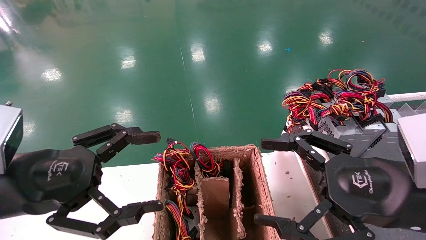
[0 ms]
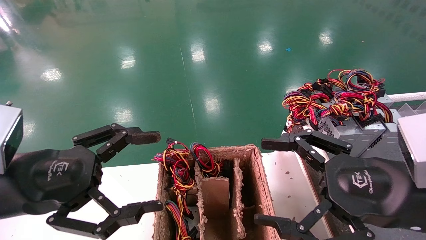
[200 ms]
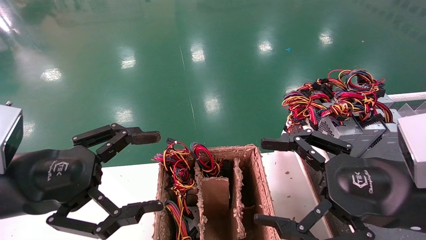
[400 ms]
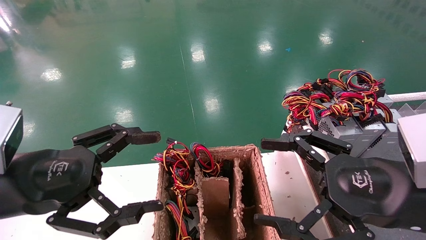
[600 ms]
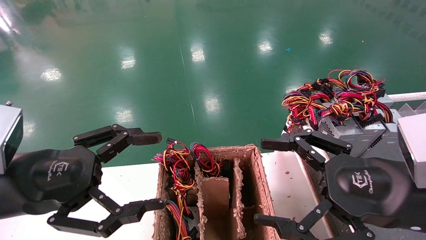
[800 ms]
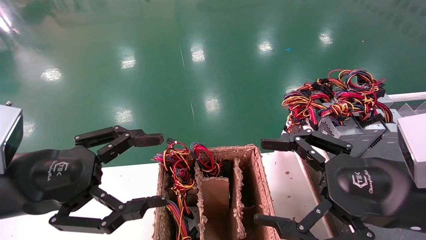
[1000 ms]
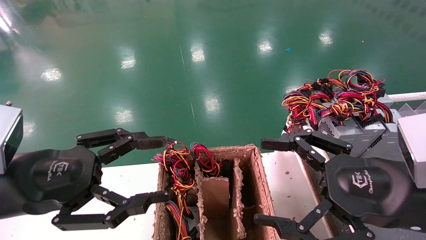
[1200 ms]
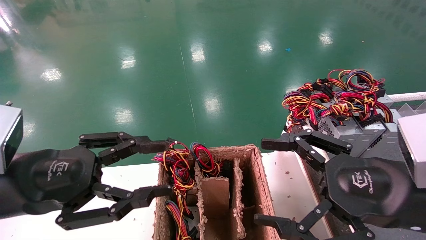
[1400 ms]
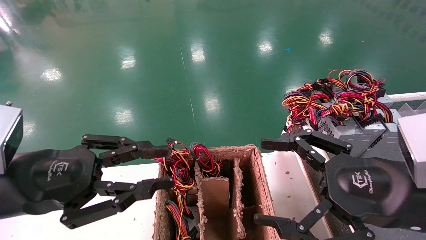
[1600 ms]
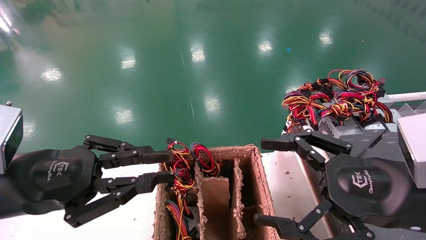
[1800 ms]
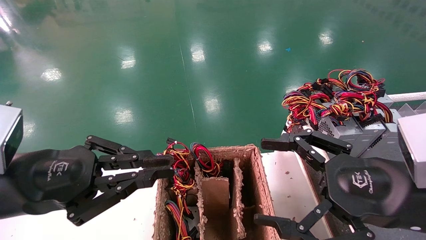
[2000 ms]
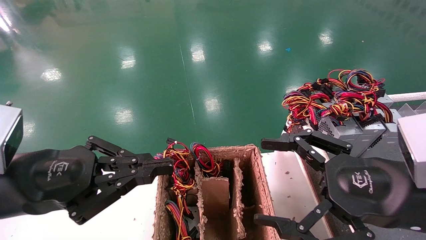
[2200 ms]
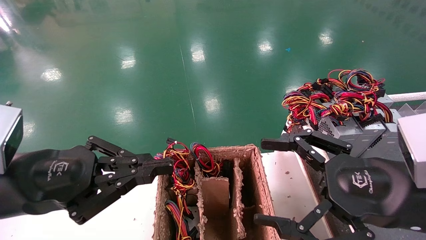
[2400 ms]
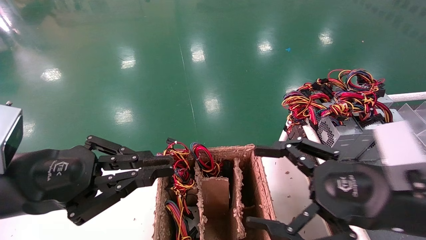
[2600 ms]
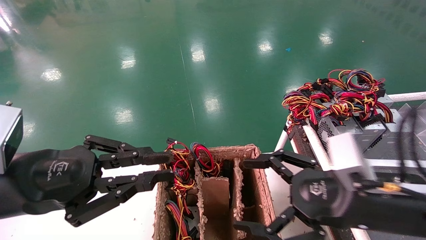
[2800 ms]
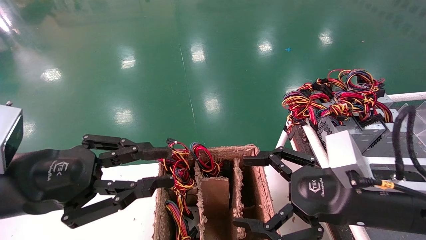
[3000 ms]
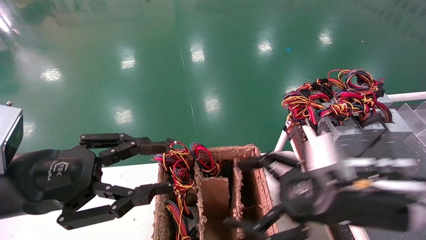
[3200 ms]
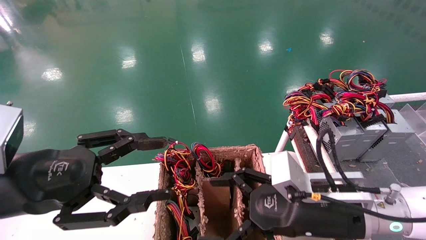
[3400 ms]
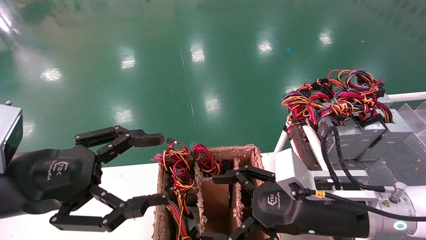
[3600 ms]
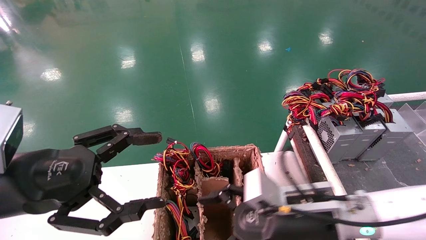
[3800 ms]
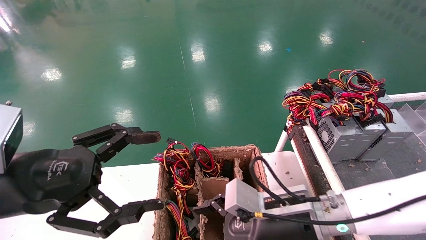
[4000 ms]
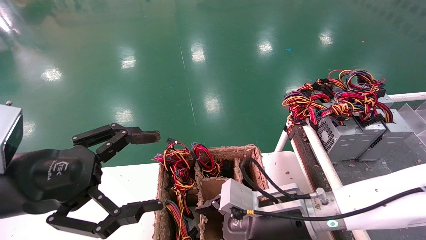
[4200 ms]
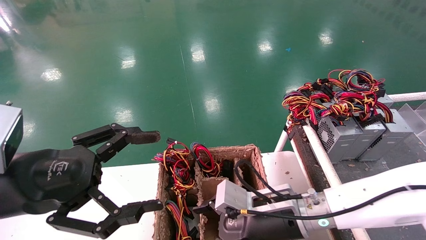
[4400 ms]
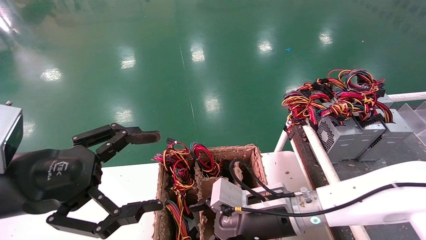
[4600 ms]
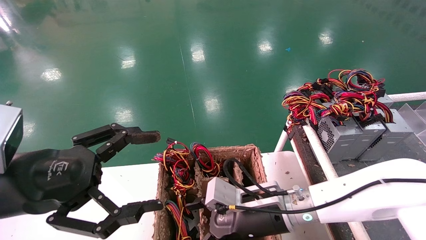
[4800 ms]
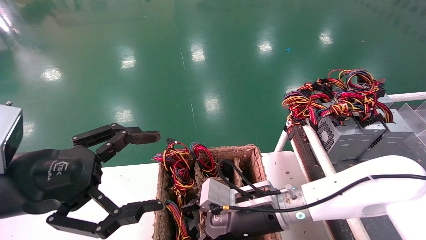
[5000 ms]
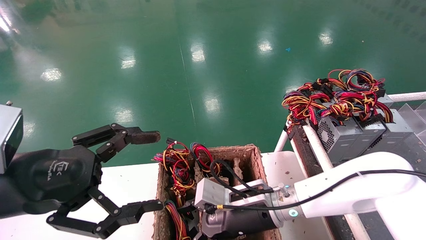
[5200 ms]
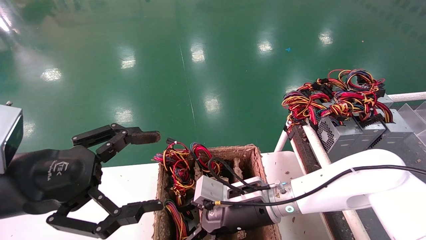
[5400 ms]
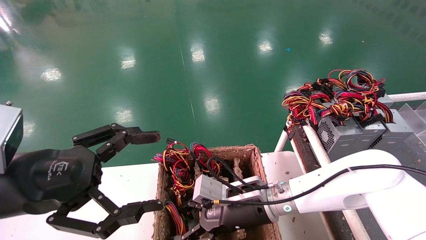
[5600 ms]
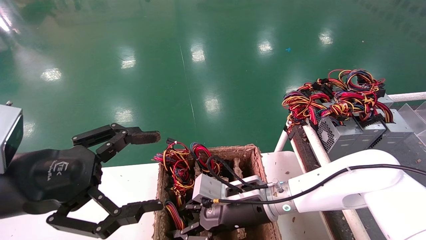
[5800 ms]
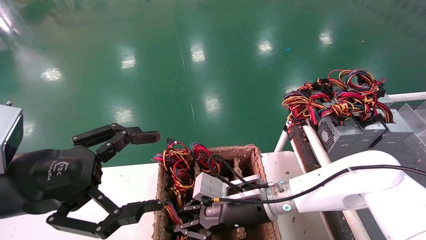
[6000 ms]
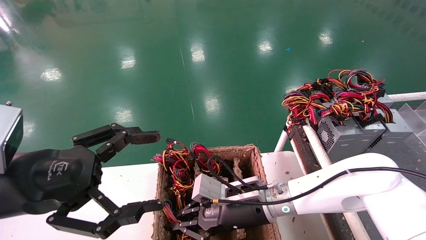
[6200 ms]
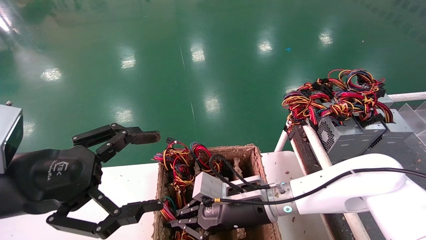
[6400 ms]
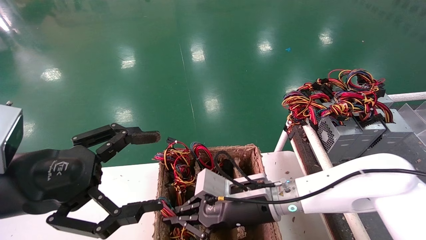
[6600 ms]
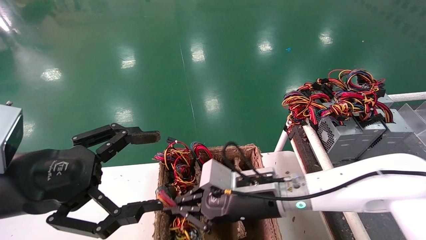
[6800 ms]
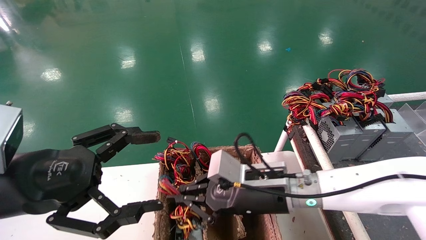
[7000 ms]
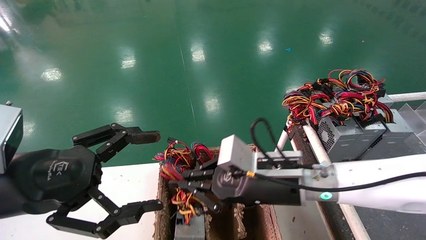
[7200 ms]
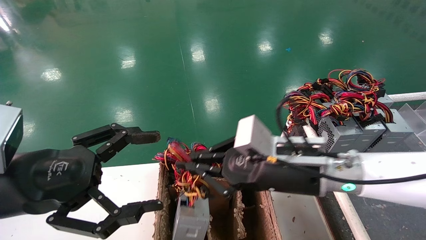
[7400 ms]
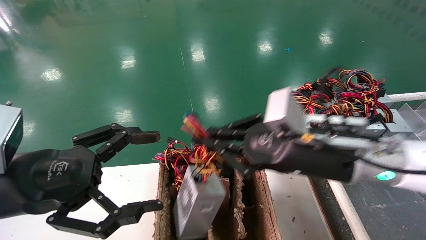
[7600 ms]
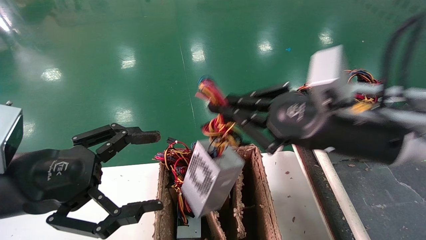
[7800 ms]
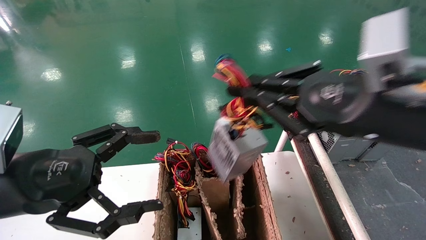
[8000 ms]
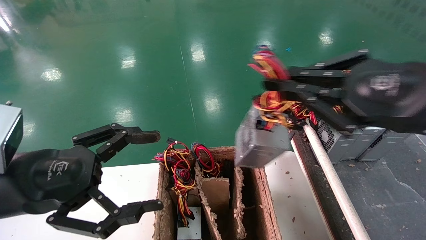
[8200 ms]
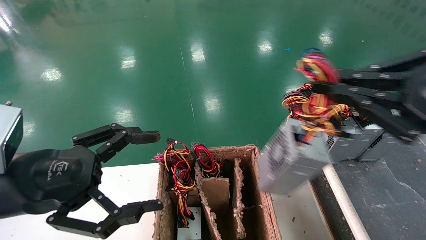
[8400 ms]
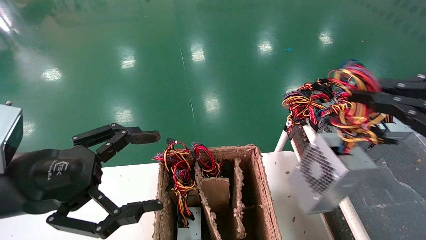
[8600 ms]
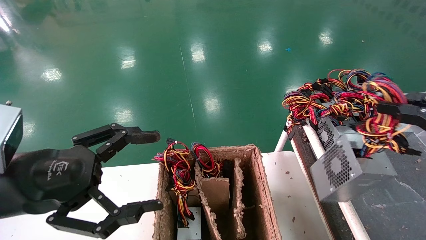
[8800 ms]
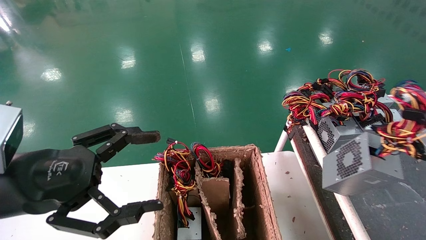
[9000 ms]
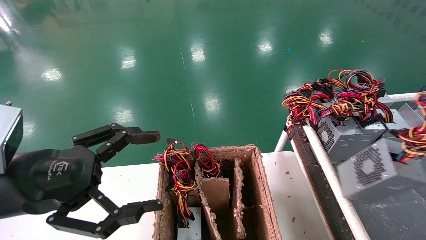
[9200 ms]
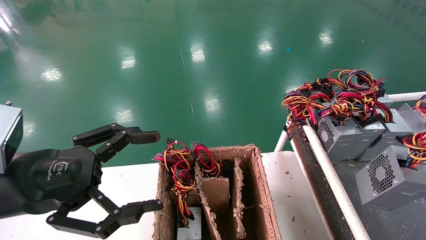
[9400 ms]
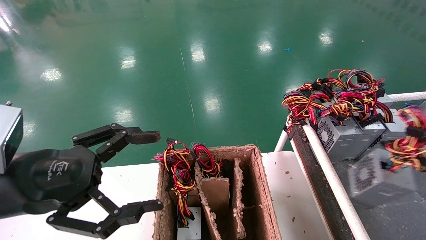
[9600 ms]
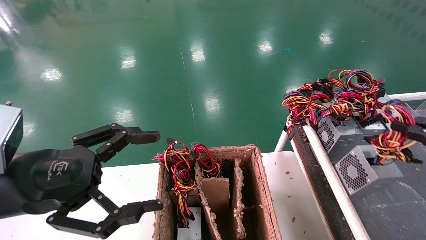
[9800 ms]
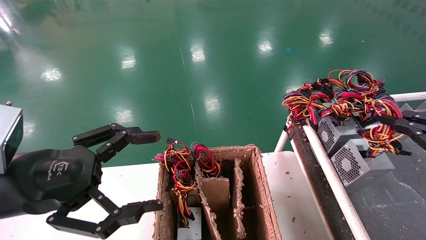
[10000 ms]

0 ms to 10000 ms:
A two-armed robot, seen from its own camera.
Step, 3000 ms to 7200 ms: Grab and lift the power supply from the large box.
0 ms to 1400 ms: The left gripper closes.
1400 ms to 2800 ms: The left gripper closes.
2800 ms to 4200 ms: The left gripper opens. Meanwhile the right gripper is displaced to the left, downward and forward by about 15 cm.
4200 ms to 5800 ms: The right gripper shifts some 5 cm forward, and closes its fingers.
5800 ms to 7200 ms: The right gripper shifts roughly 10 cm upward, and closes up.
7200 ms to 8600 ms: The right gripper is displaced to the right, backward and upward by some 30 cm.
8600 ms to 10000 ms: The right gripper shifts roughly 10 cm to the right, downward and forward.

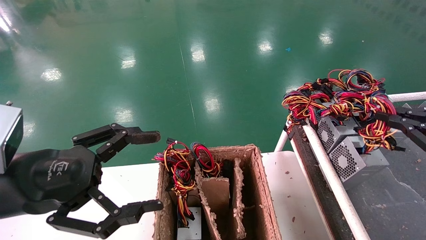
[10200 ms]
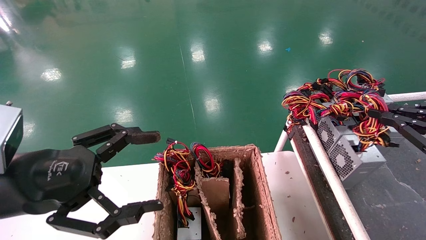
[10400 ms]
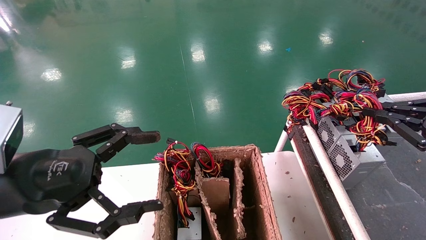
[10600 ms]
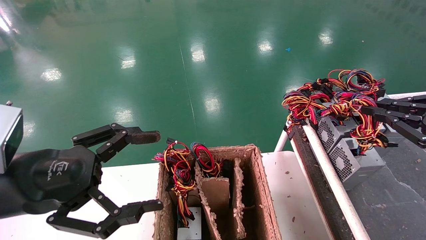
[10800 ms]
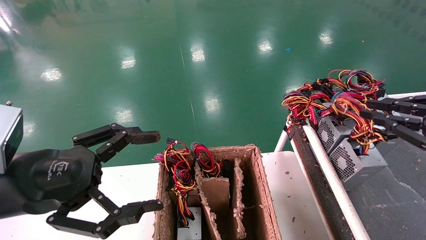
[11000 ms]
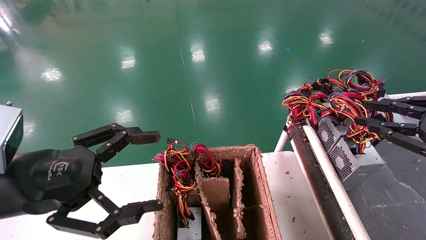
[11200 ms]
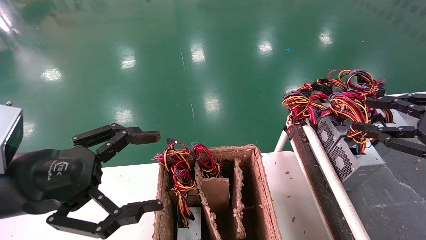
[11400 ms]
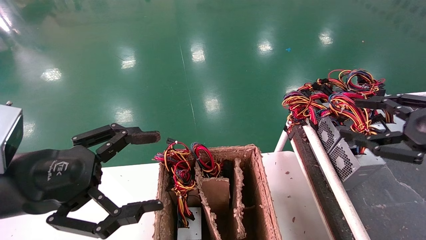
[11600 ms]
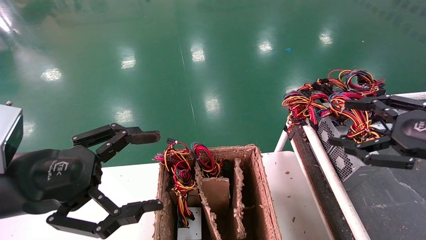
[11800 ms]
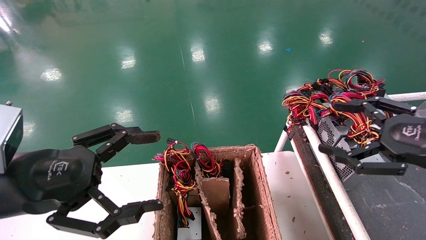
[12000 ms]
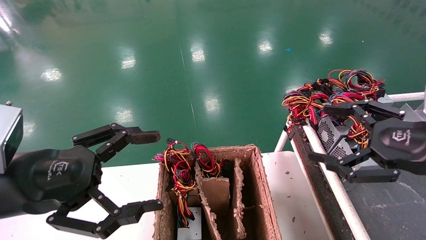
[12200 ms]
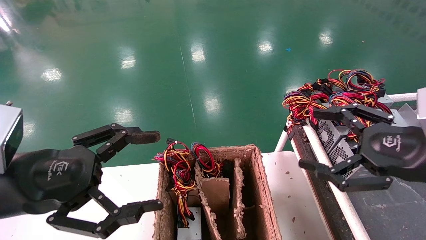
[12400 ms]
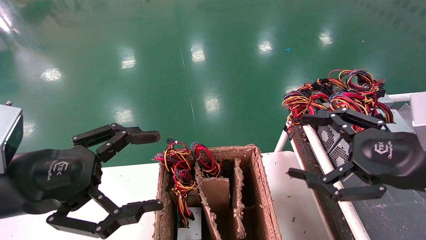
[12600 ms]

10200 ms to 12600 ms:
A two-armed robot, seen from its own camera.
10200 ms to 11400 ms: There are only small adjustments of the grippers.
11400 ms to 12600 ms: The right gripper travels to the left by roughly 10 cm, and opens.

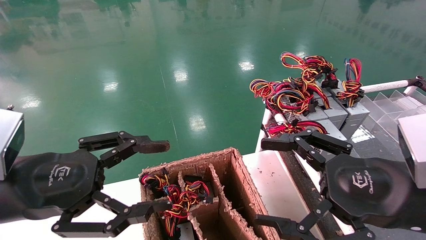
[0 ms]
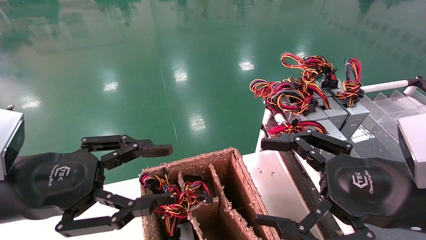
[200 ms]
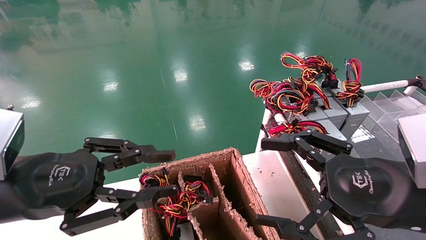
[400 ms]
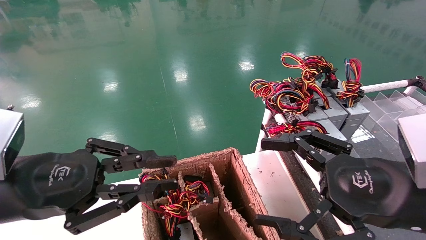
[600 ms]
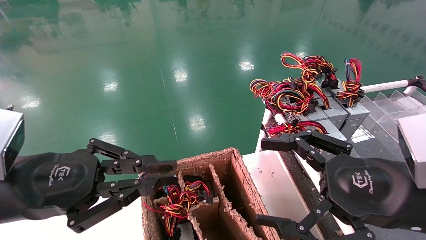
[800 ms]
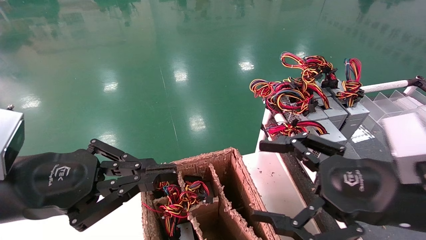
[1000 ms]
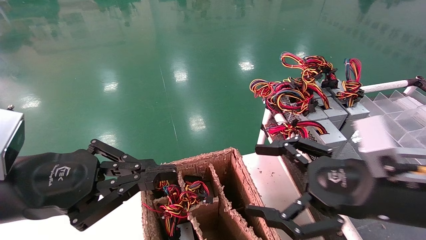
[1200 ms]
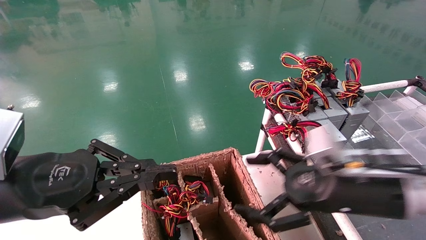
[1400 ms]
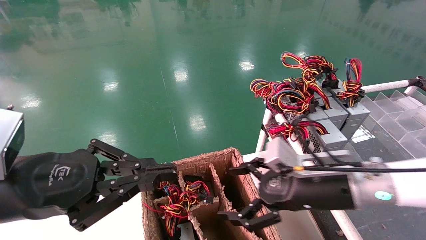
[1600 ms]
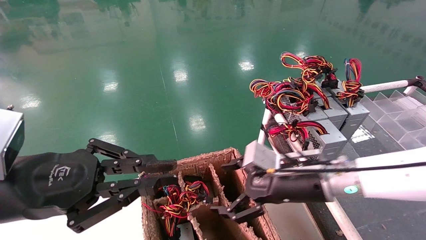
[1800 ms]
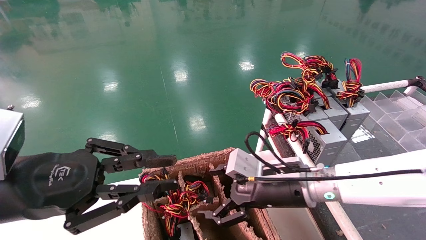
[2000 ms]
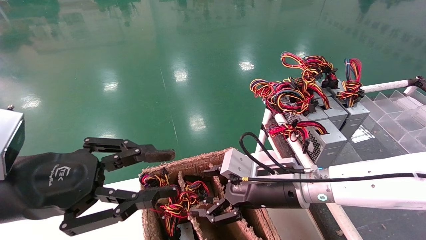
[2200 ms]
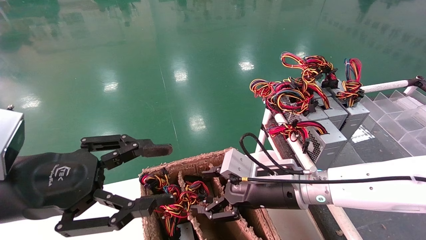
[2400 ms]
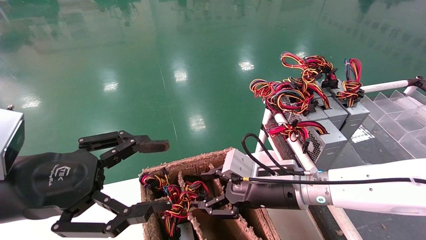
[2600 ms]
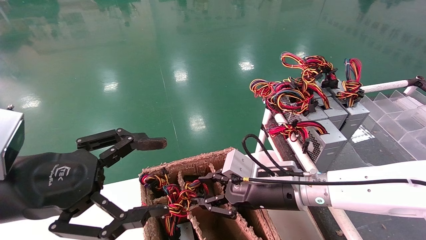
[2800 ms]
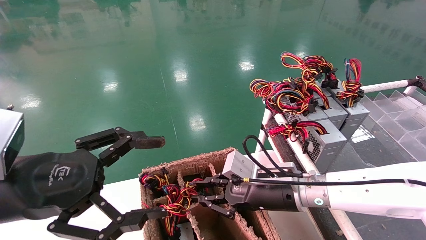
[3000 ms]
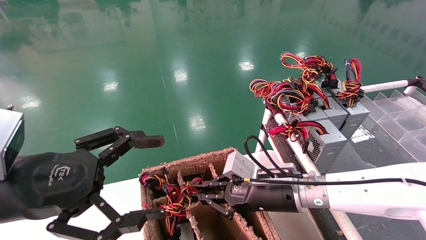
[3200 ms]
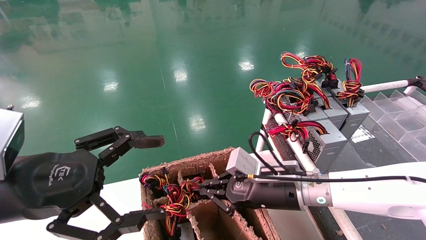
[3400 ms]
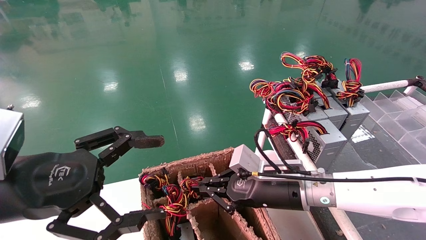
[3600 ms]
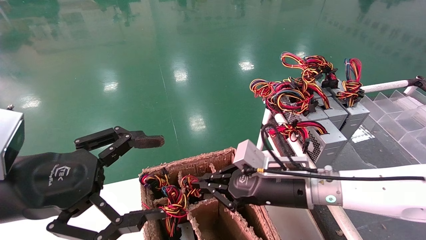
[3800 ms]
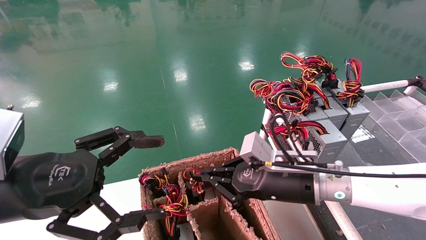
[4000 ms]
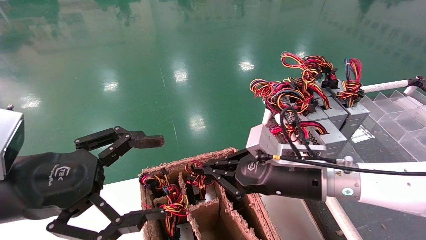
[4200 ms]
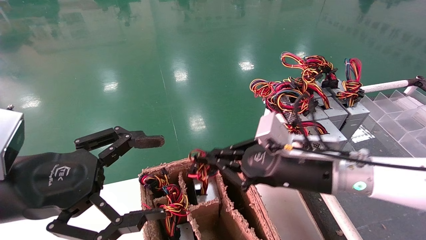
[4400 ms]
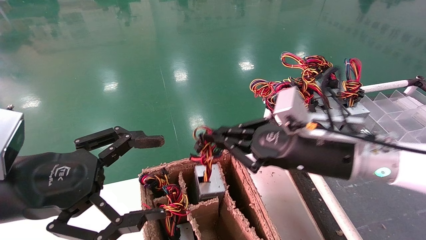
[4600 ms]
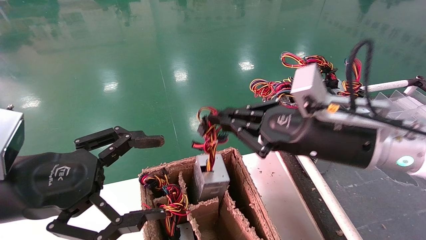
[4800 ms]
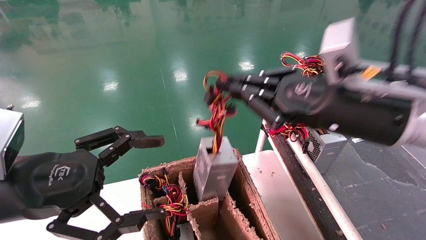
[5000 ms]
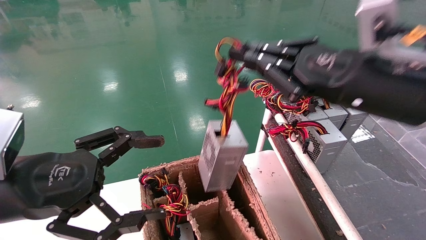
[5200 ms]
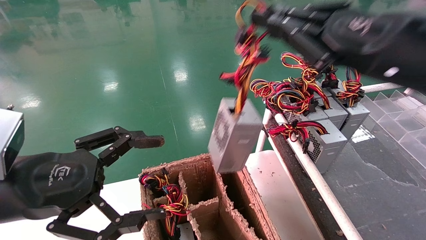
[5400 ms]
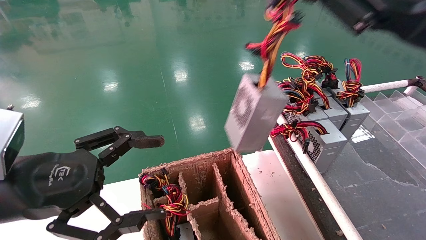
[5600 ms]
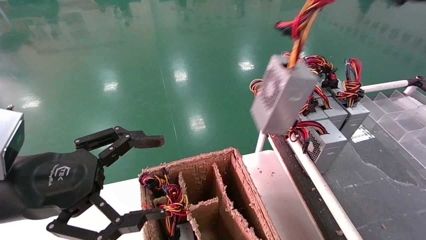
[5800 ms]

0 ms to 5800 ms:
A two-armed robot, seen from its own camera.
Step, 1200 ms to 3400 ms: Grab and lift the power supply from the large box.
0 ms to 1400 ms: The left gripper closes its fingers. Meanwhile the right gripper travels forward by about 5 cm.
1400 ms to 2800 ms: The right gripper shifts about 15 cm to the left, forward and downward, and closes its fingers. The left gripper opens.
2800 ms to 4400 ms: The right gripper heads upward, covering about 5 cm, and closes its fingers.
4400 ms to 5800 ms: The right gripper goes about 25 cm upward and to the right.
